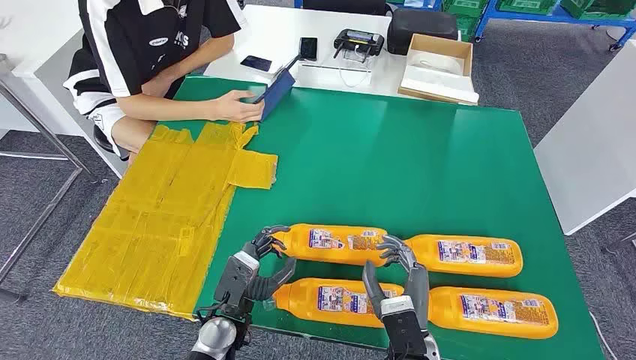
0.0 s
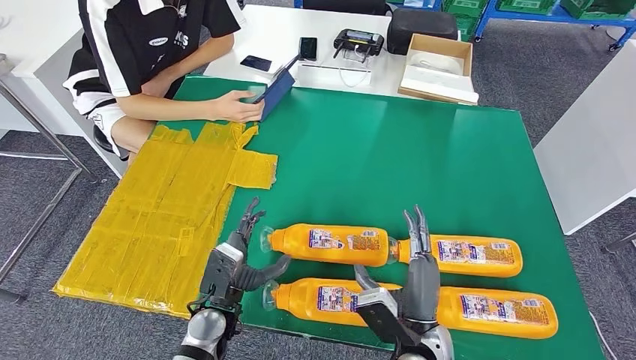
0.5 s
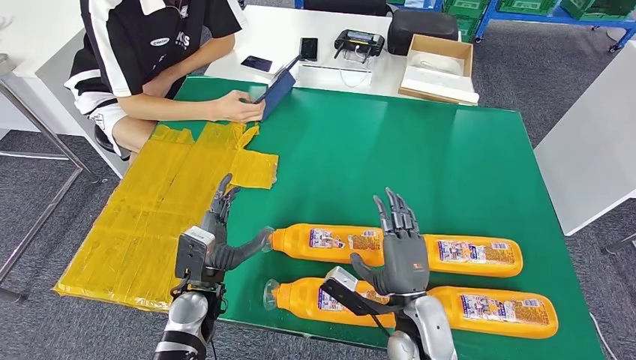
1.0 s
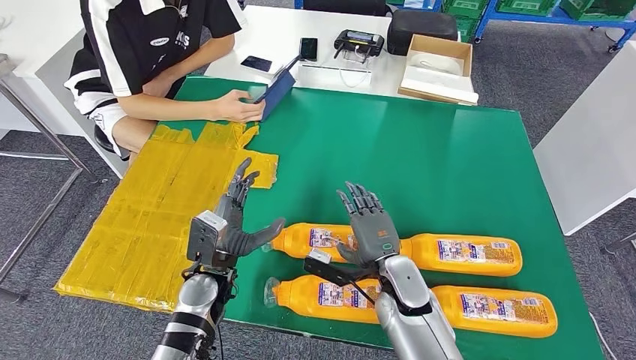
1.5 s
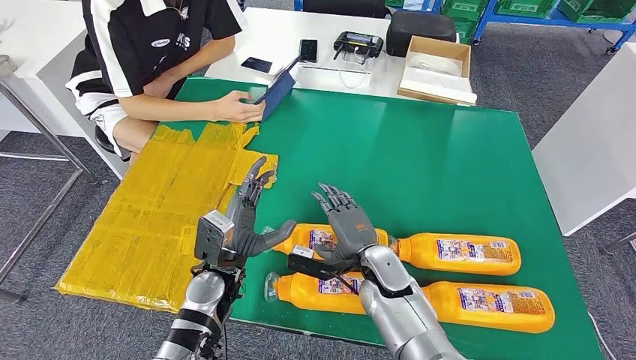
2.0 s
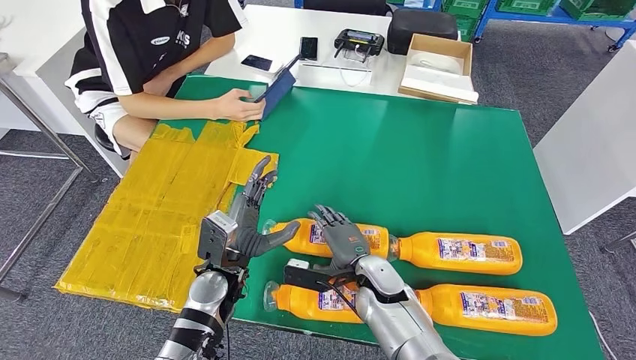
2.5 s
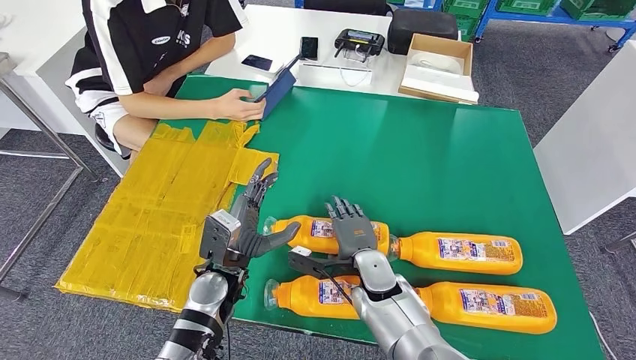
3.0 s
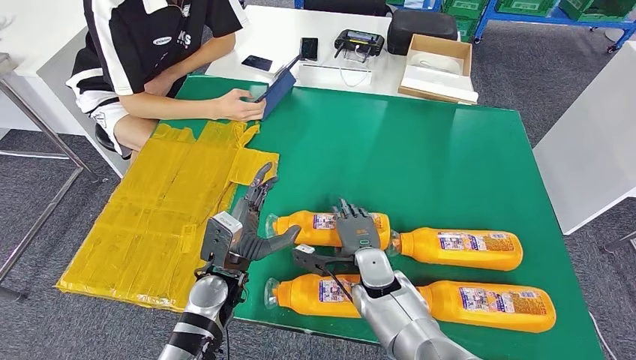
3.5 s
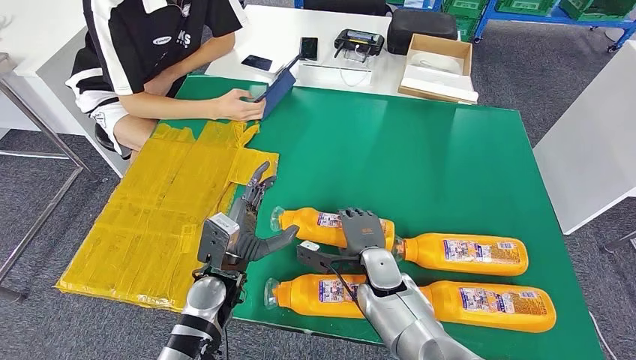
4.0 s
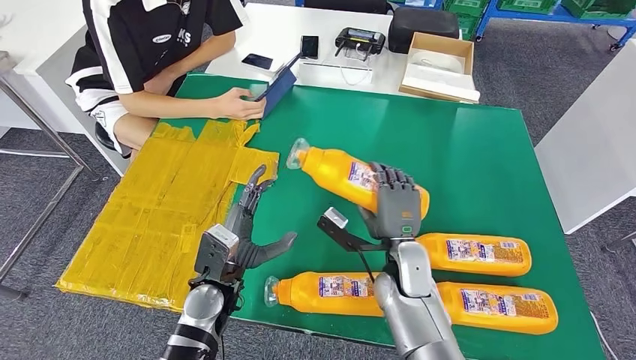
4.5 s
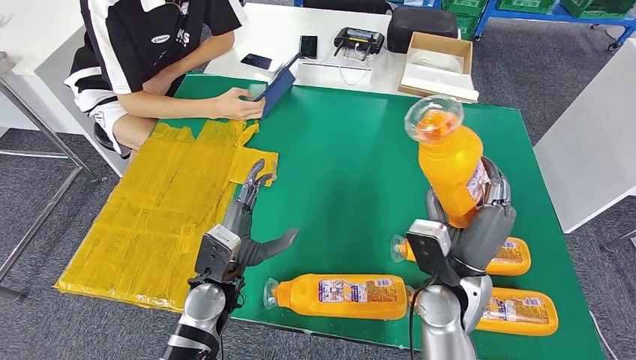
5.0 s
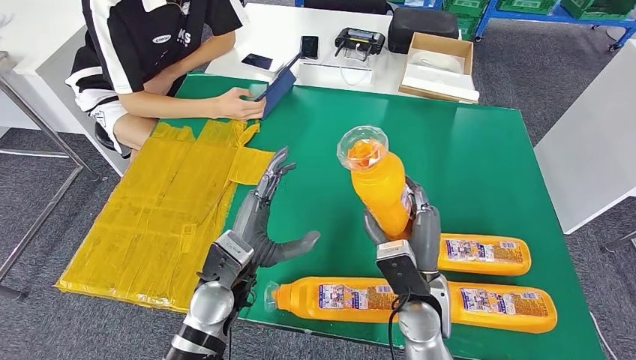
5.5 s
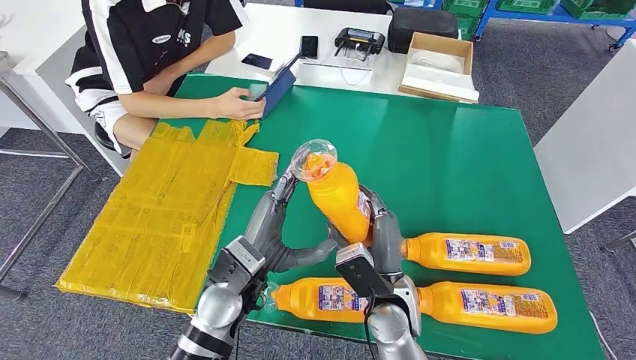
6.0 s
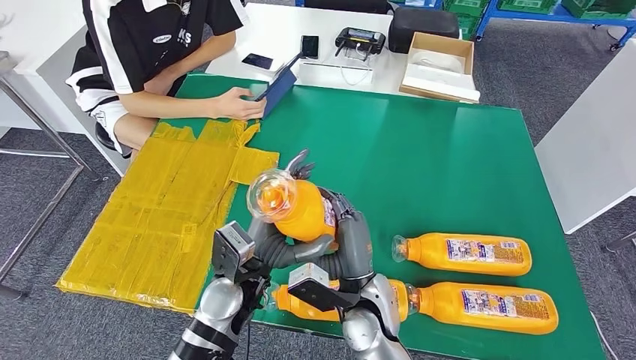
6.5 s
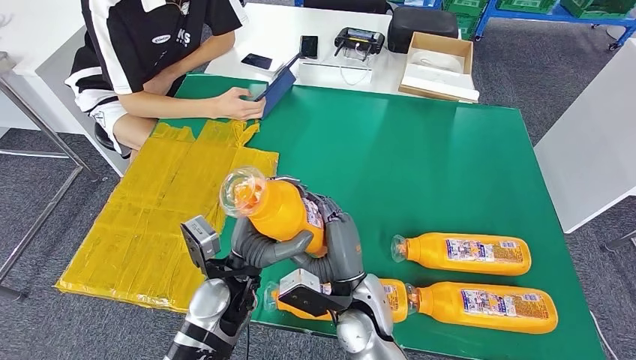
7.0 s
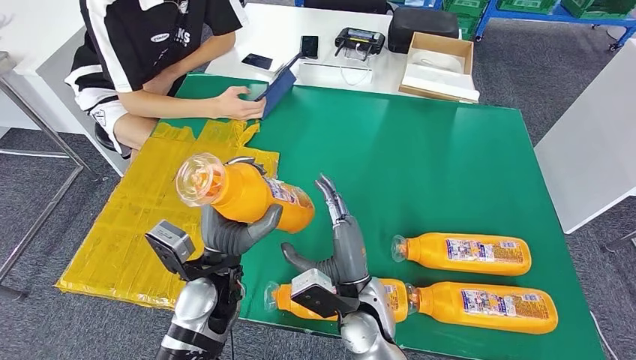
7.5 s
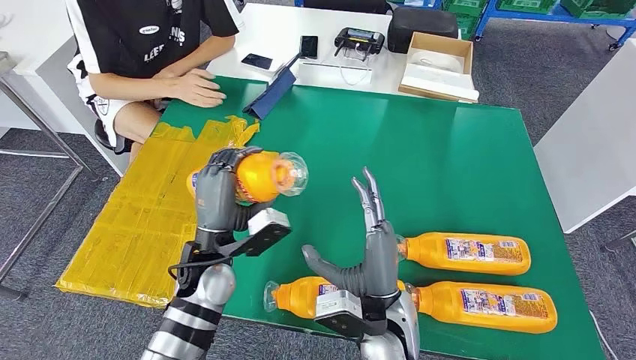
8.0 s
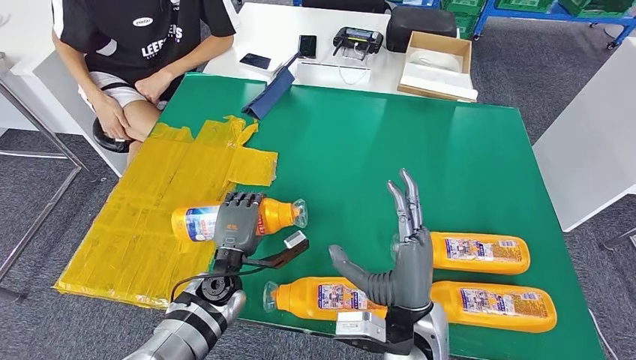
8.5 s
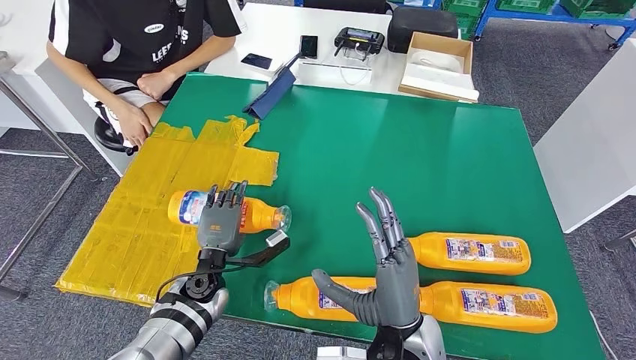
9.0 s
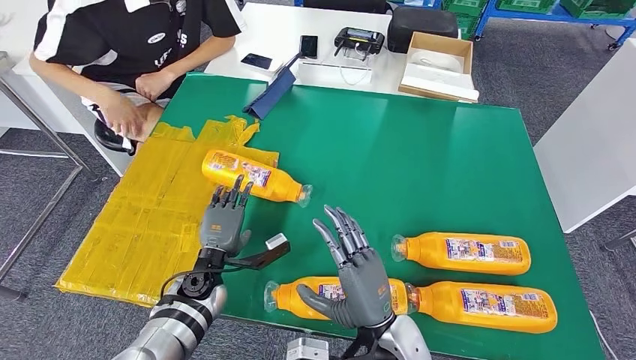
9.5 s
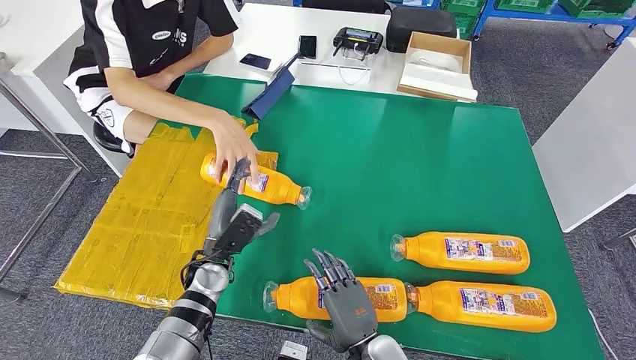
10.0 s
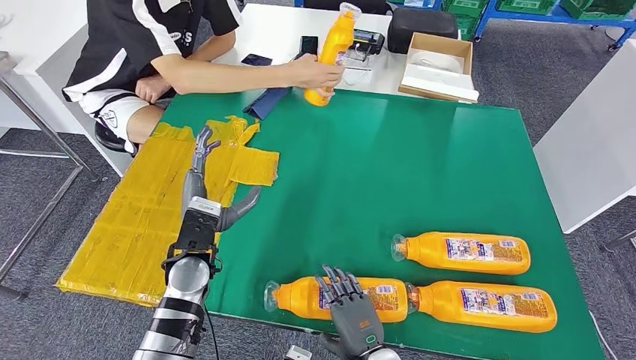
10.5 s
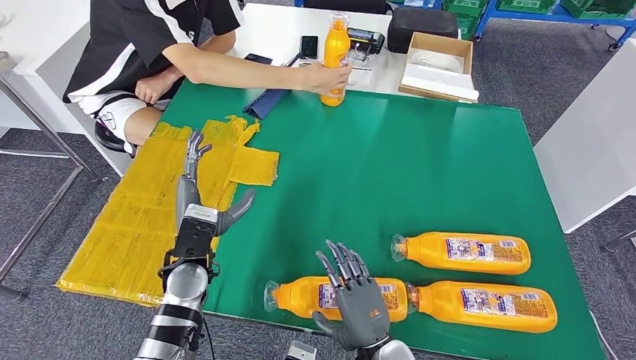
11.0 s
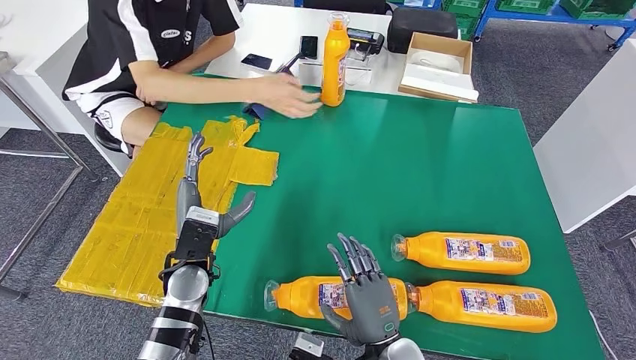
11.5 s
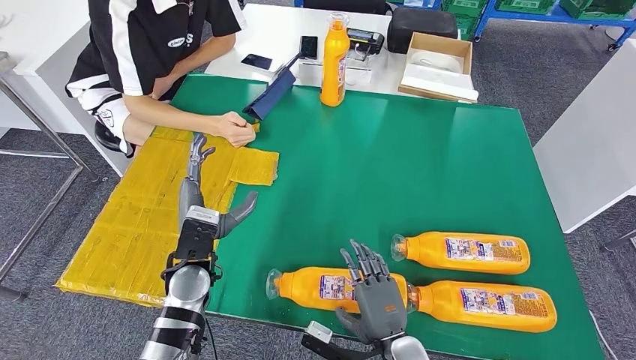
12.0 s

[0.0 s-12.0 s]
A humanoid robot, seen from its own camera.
Step, 0.0 to 6.0 s: Take the bottle from the table.
Step, 6.5 to 9.5 s: Flip the bottle to face forward.
4.0 to 6.0 s: The left hand heads upward, covering about 5 cm, while the right hand goes approximately 10 cm backward and upward.
6.0 to 8.0 s: The left hand moves to the left, roughly 5 cm; the right hand changes place by approximately 5 cm.
8.0 to 10.0 s: The left hand travels downward by approximately 10 cm. The right hand heads downward and backward, covering some 10 cm.
10.0 to 12.0 s: The left hand travels upward by about 5 cm.

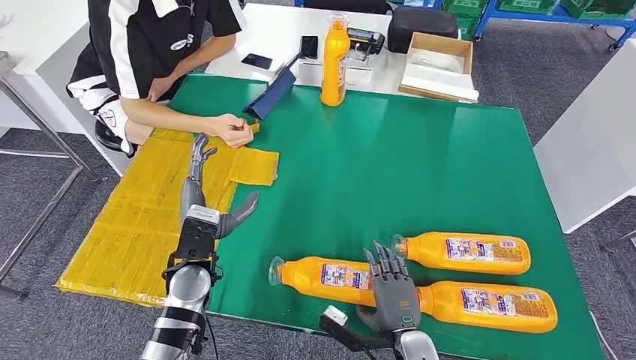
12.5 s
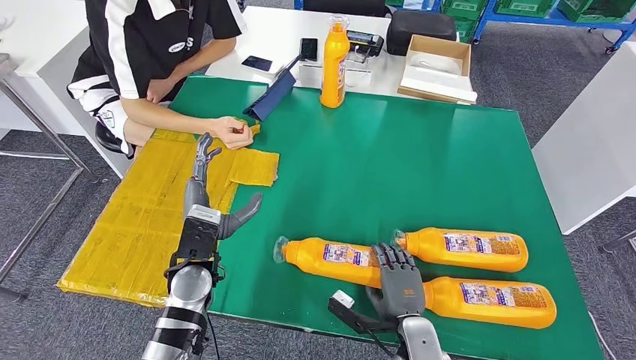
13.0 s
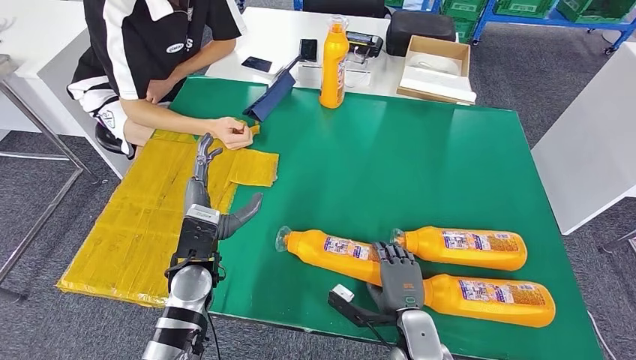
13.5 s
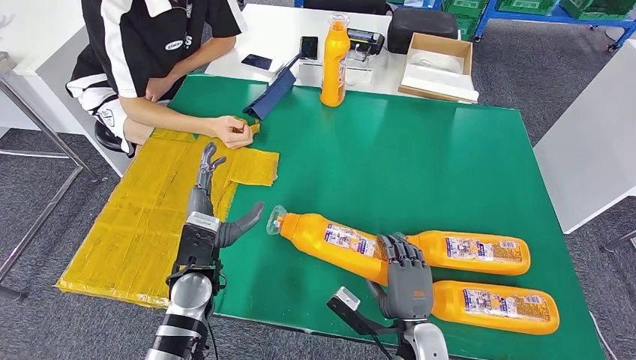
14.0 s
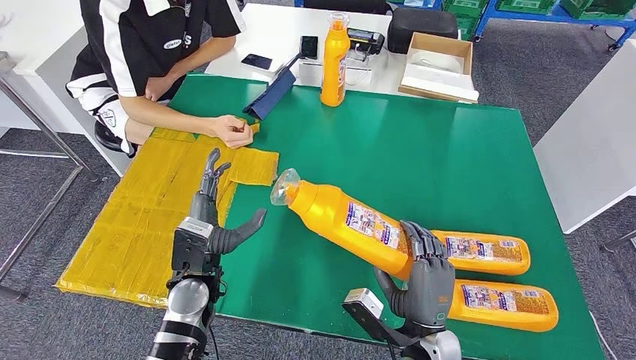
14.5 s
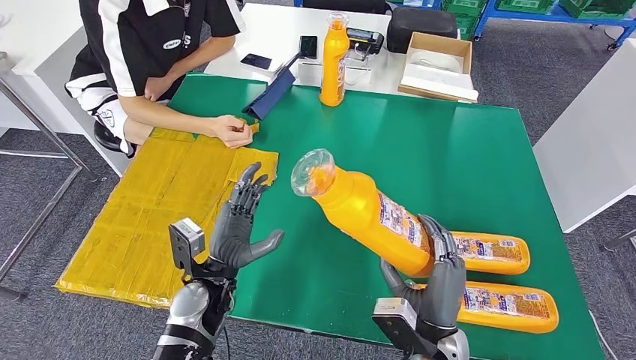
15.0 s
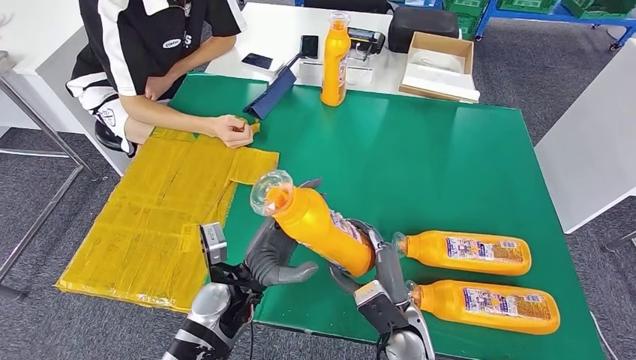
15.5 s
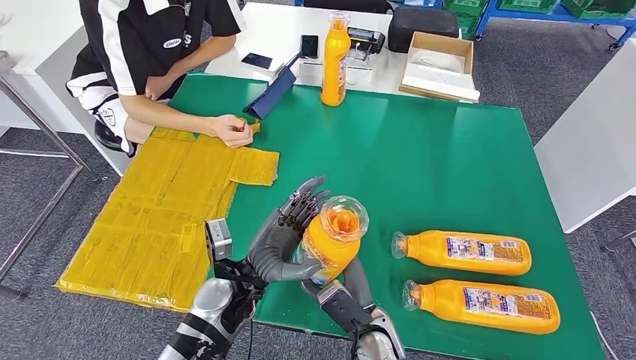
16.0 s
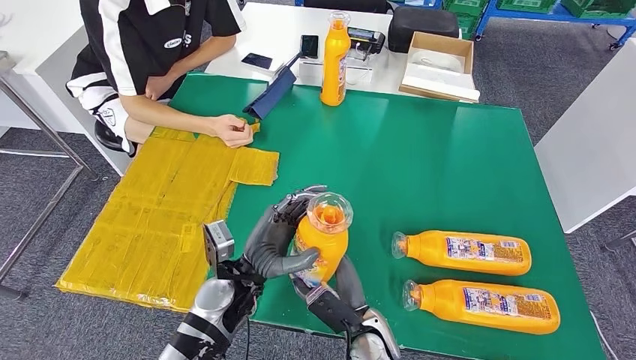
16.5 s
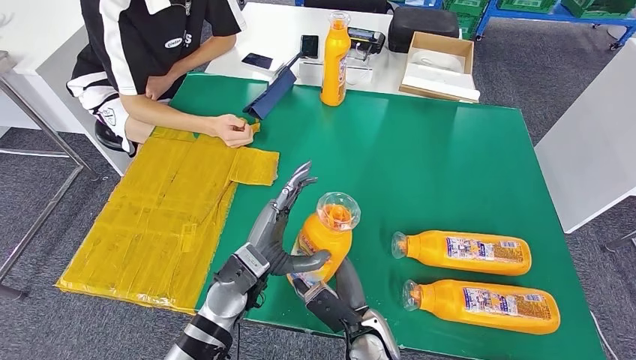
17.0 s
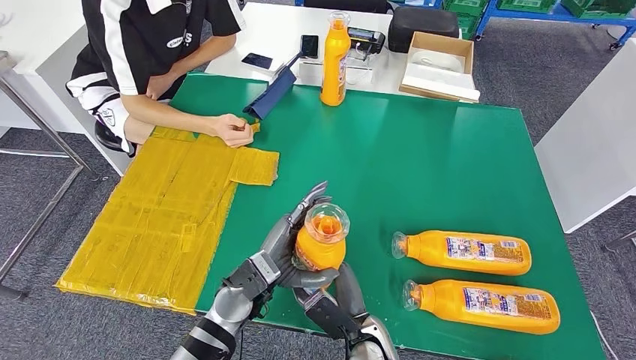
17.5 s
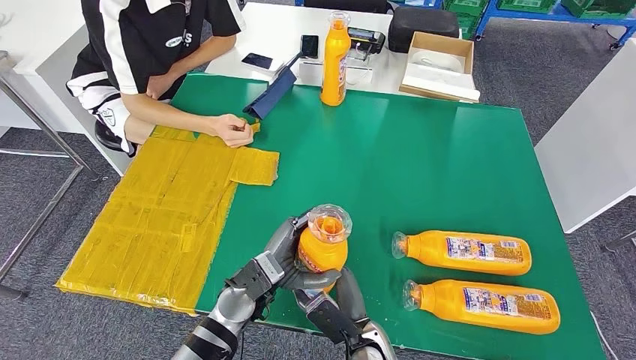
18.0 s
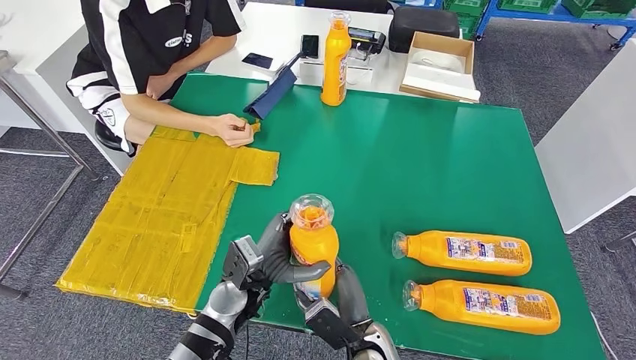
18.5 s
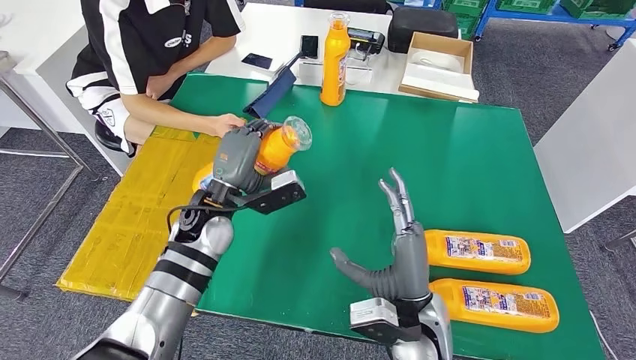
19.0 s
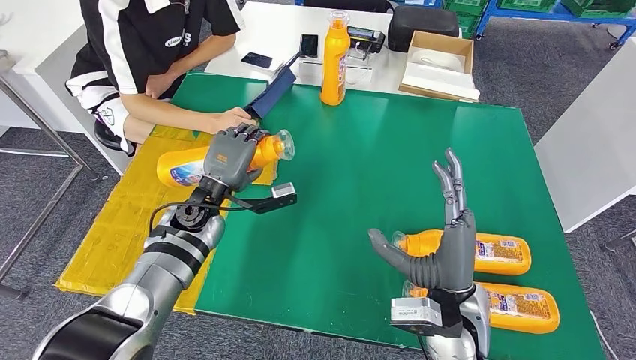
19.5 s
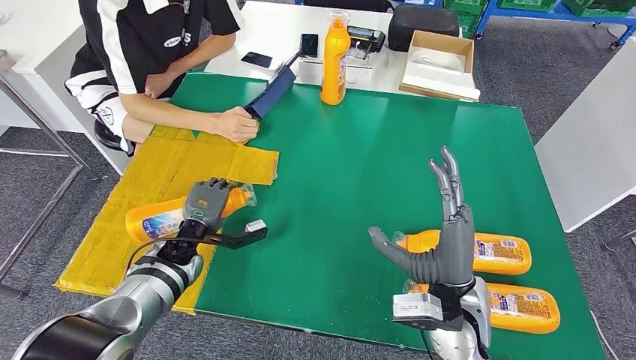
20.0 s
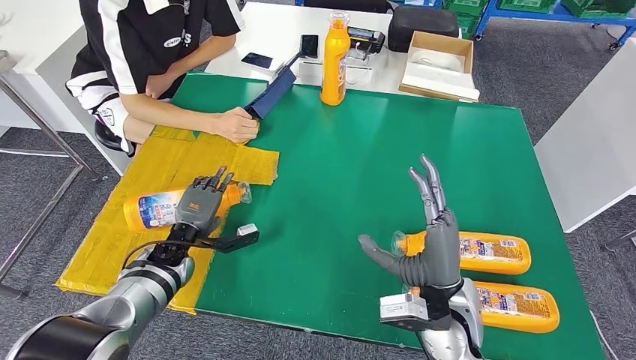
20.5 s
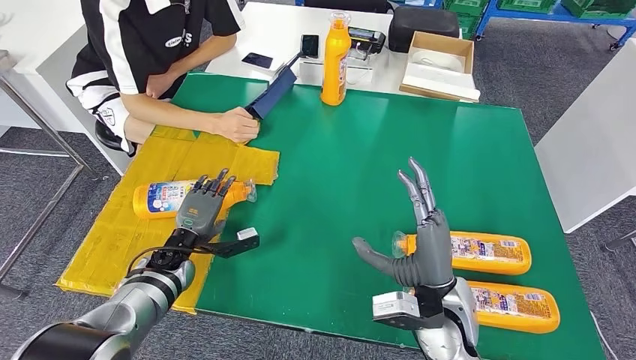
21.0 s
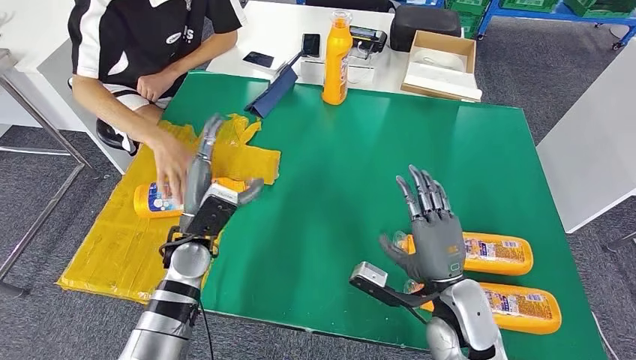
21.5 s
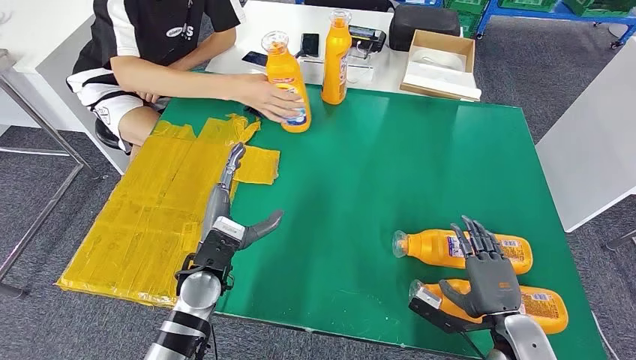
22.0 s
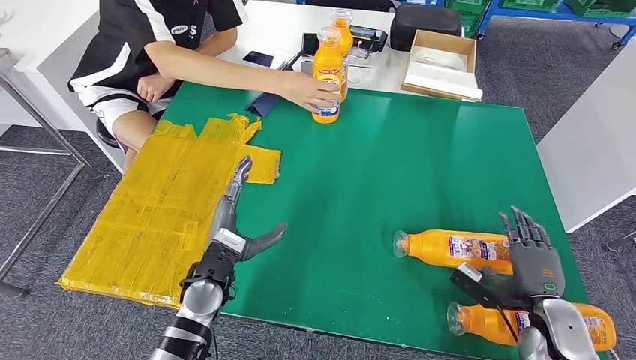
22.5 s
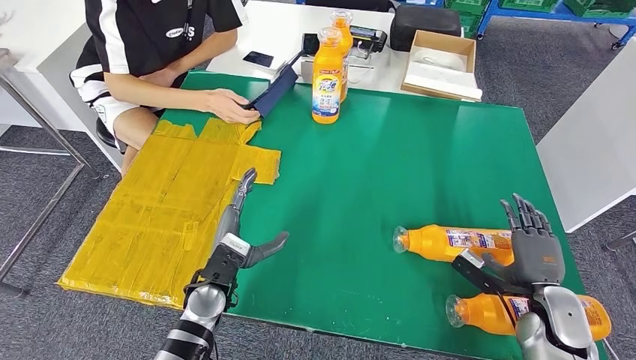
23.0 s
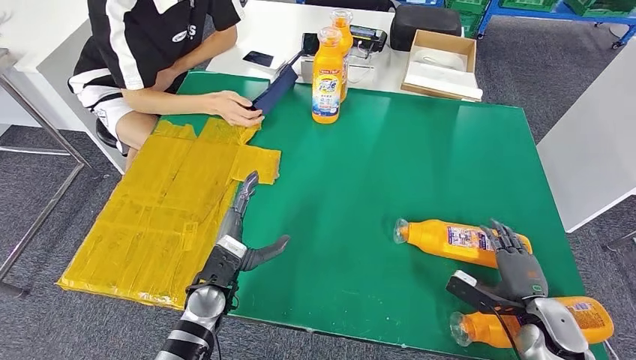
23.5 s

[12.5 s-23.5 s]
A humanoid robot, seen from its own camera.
Step, 12.5 to 15.0 s: Pick up the bottle from the table.
Step, 16.0 to 20.0 s: Flip the bottle to face forward.
12.5 to 14.5 s: The right hand is displaced upward by some 5 cm.
14.5 to 16.0 s: The right hand travels to the left and downward by some 10 cm; the left hand travels to the right by some 5 cm.
